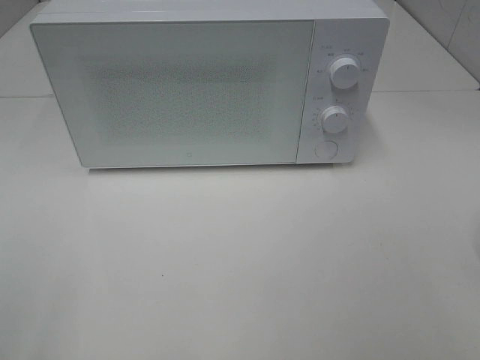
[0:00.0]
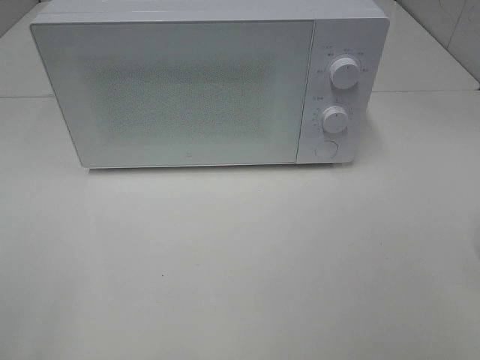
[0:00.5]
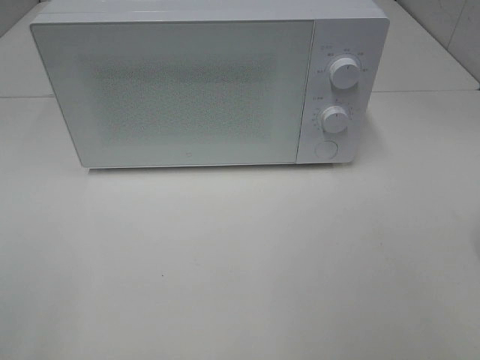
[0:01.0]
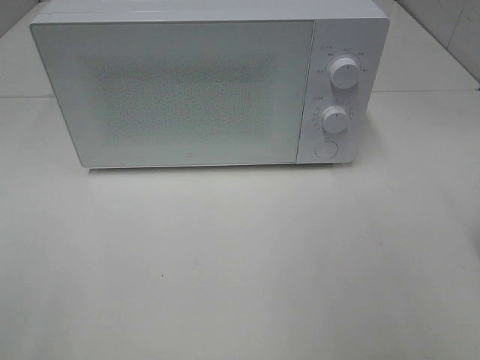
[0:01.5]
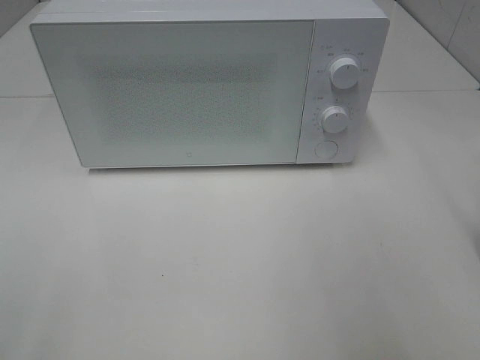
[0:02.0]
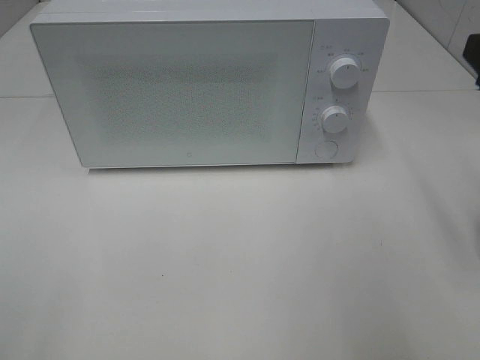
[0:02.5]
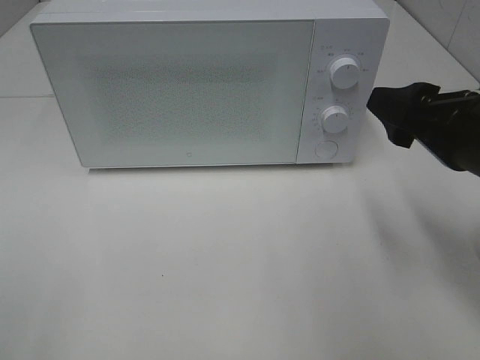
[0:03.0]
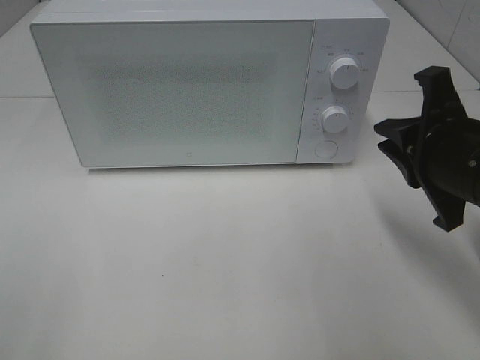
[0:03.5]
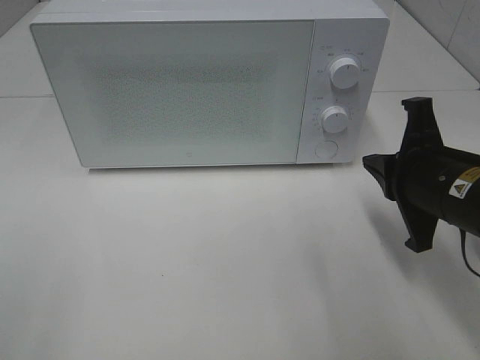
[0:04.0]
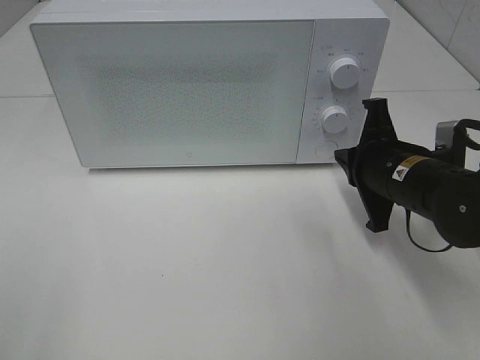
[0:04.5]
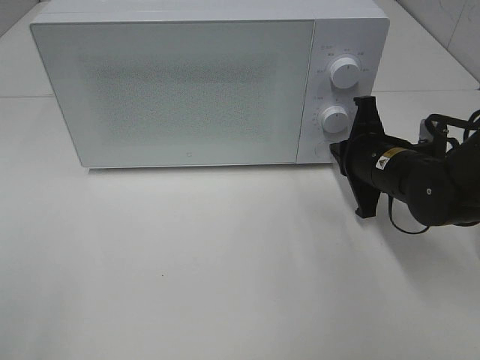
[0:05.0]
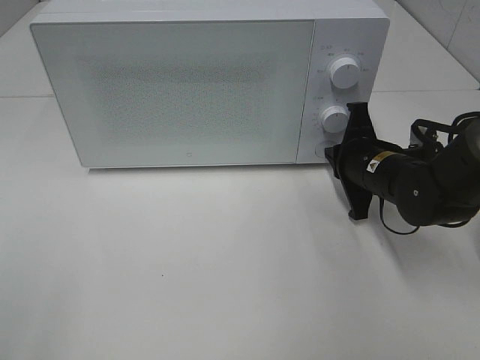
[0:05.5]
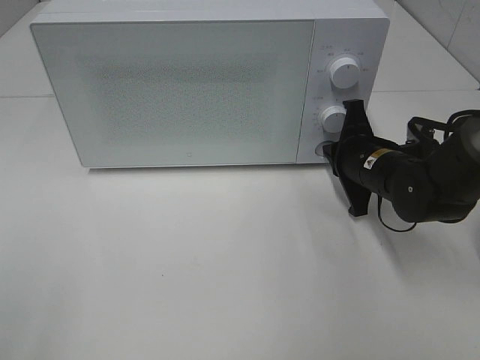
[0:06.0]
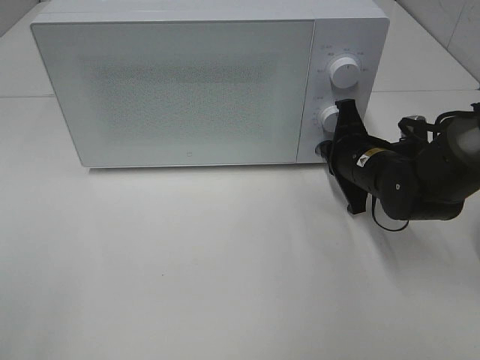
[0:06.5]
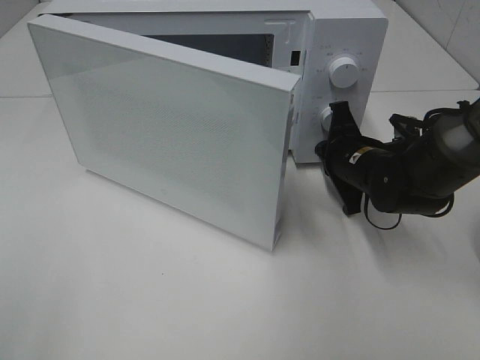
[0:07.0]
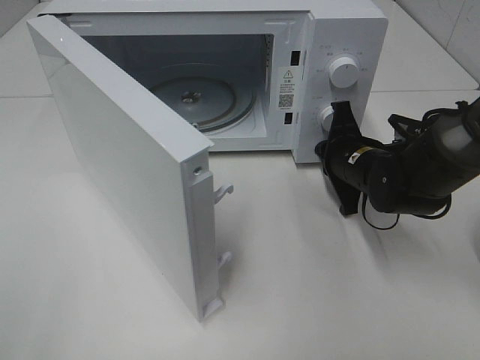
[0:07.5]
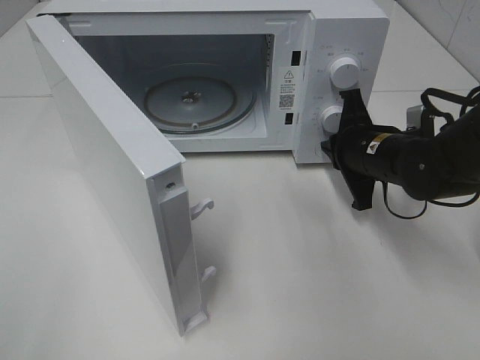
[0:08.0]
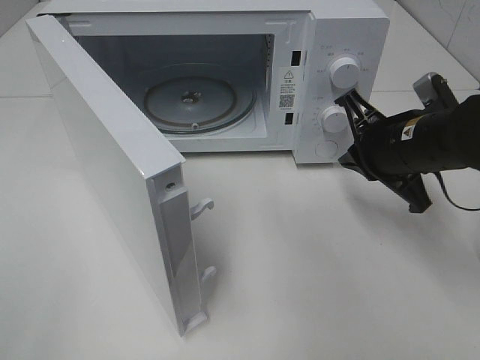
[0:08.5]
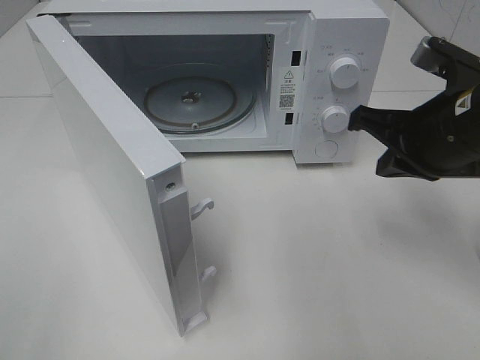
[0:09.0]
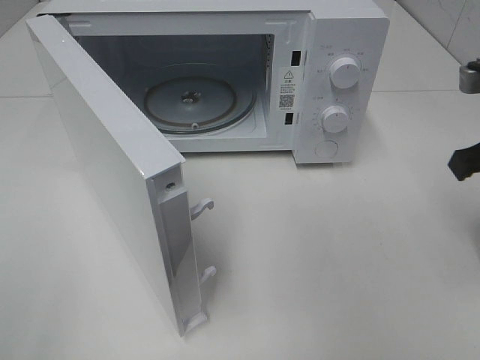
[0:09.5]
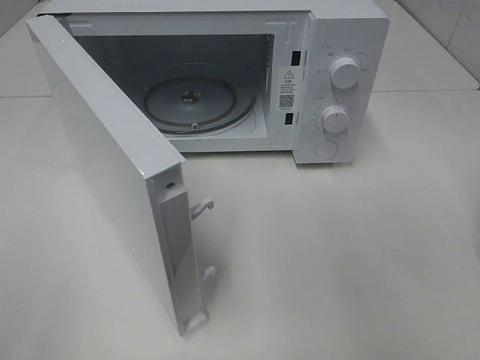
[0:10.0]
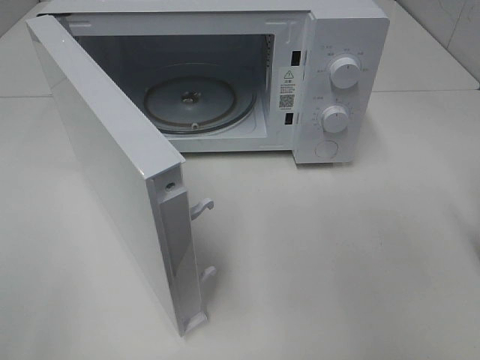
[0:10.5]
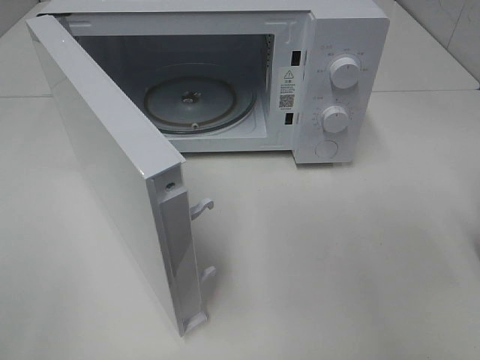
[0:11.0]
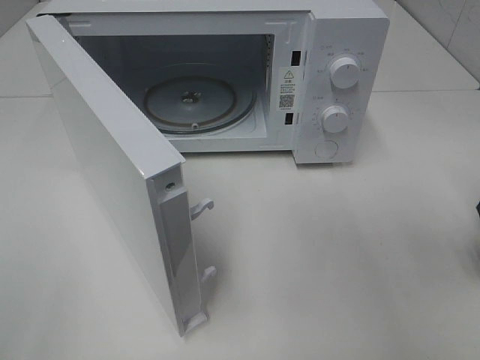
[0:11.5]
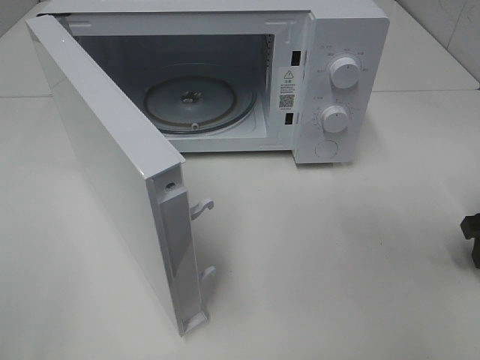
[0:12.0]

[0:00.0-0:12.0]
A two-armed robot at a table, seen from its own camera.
Task of the whole recording: Heat the burger.
Step, 0:00.0 to 0:08.0: Right hand: press the switch.
0:02.0 to 0:04.0: The right gripper heads downward and to the left, covering about 20 cm, and closes its fingers.
0:04.0 to 0:06.0: The right gripper heads forward and downward, covering some 15 cm.
0:08.0 to 0:10.0: The right gripper moves to the right, upward and backward, approximately 20 cm, and opens its fingers.
0:10.0 to 0:12.0: The right gripper heads downward, covering about 10 cm, and opens.

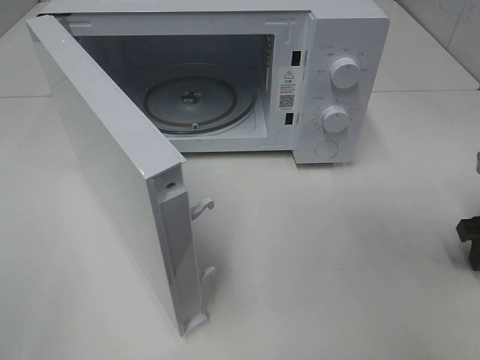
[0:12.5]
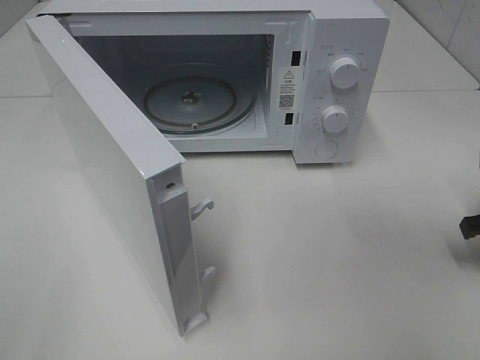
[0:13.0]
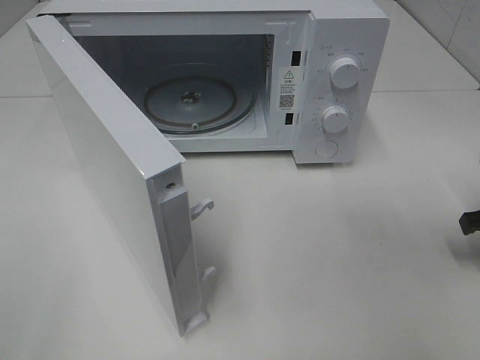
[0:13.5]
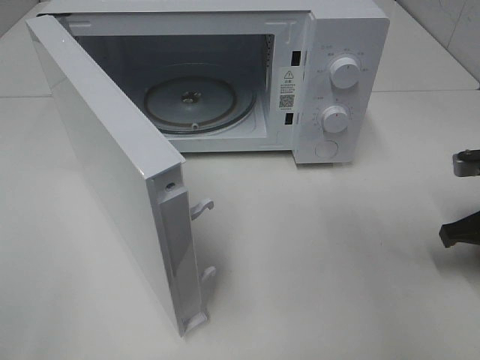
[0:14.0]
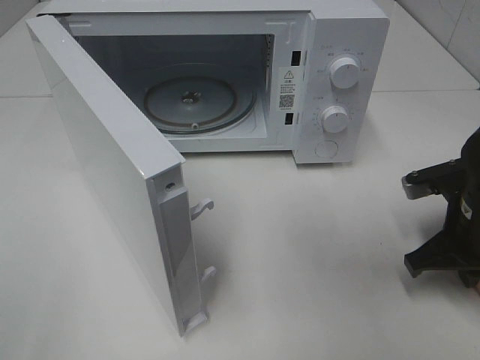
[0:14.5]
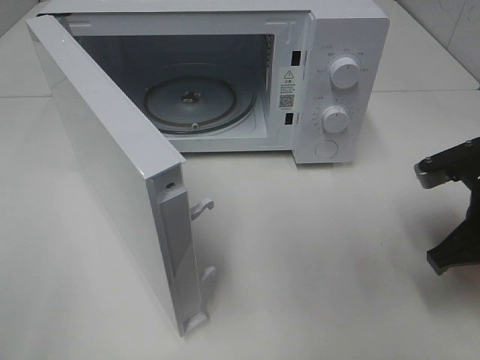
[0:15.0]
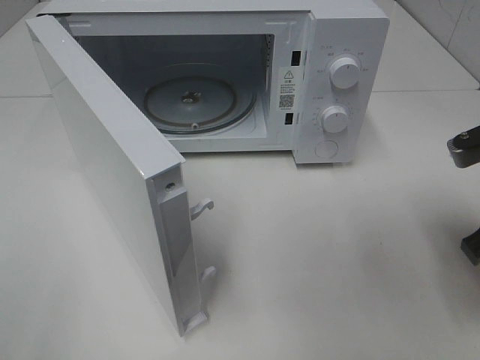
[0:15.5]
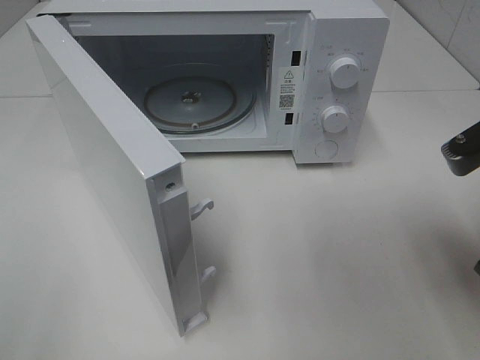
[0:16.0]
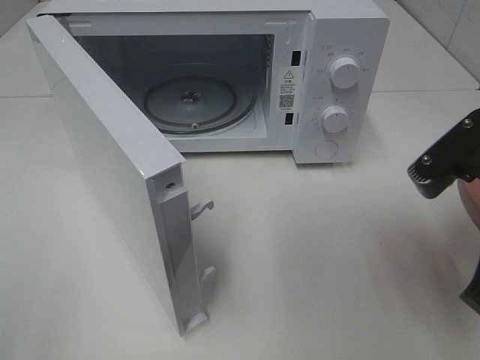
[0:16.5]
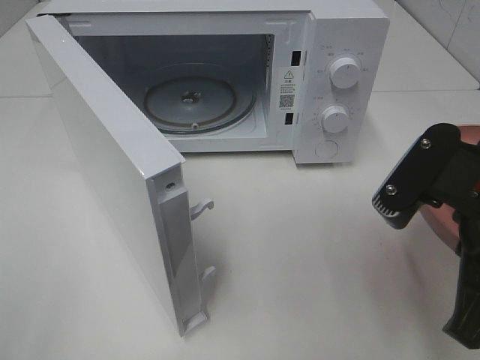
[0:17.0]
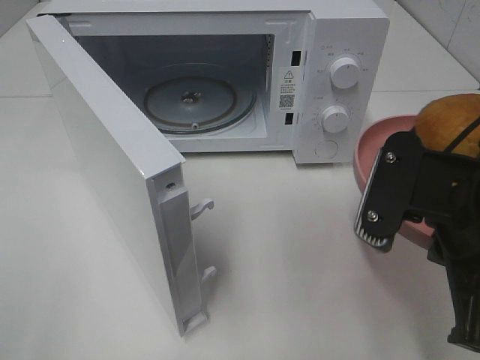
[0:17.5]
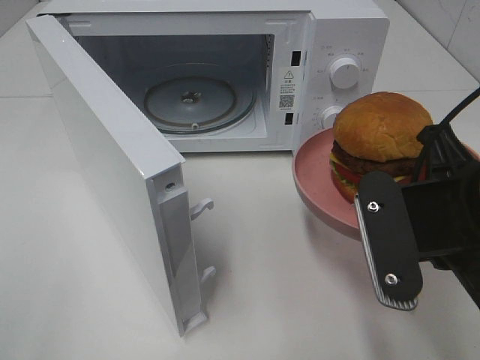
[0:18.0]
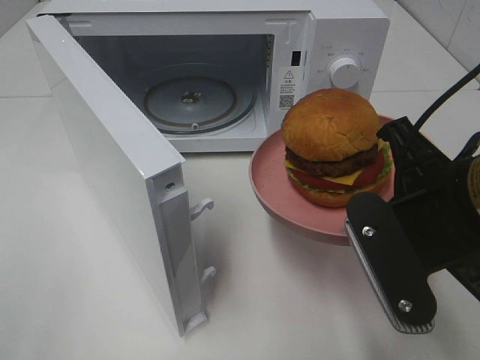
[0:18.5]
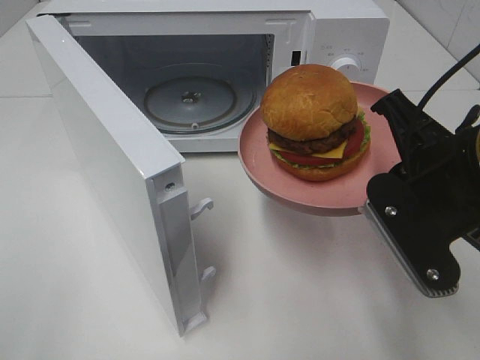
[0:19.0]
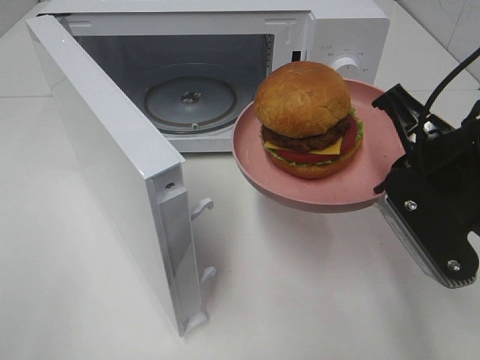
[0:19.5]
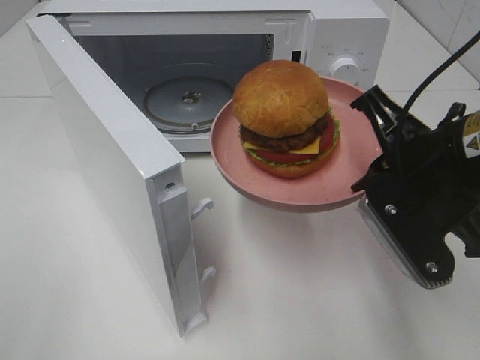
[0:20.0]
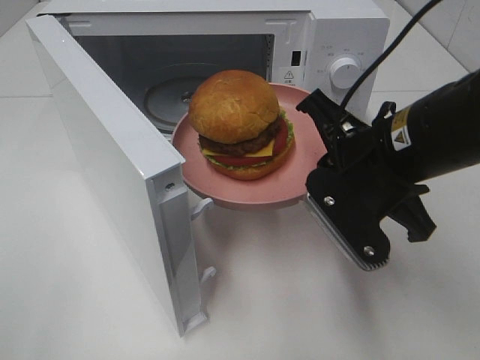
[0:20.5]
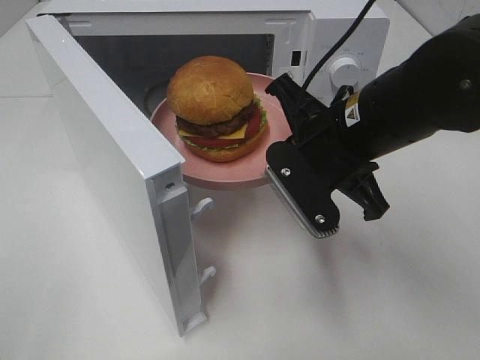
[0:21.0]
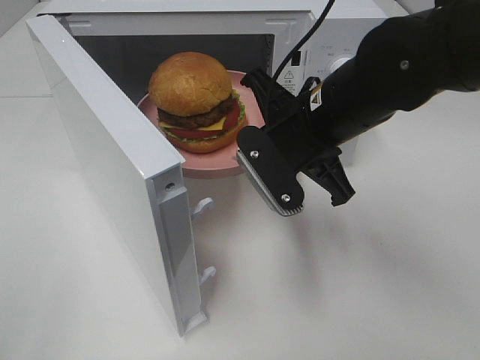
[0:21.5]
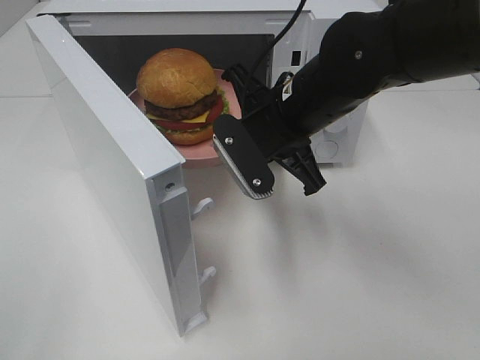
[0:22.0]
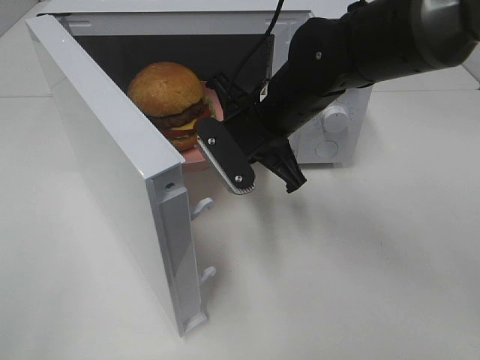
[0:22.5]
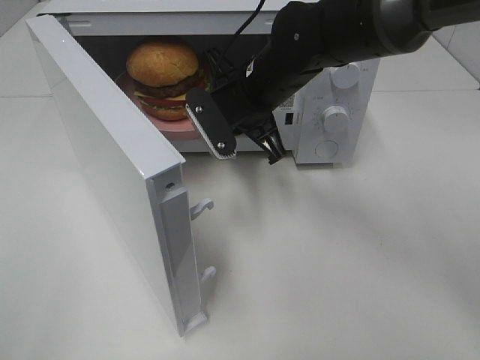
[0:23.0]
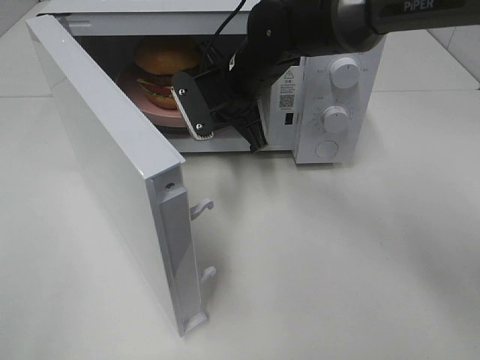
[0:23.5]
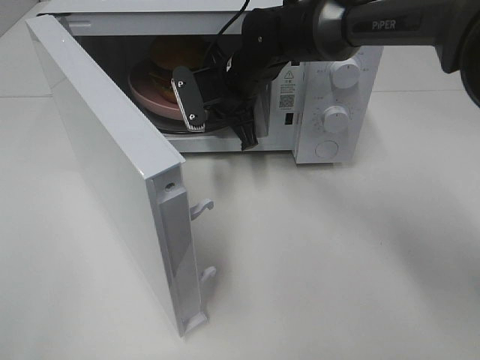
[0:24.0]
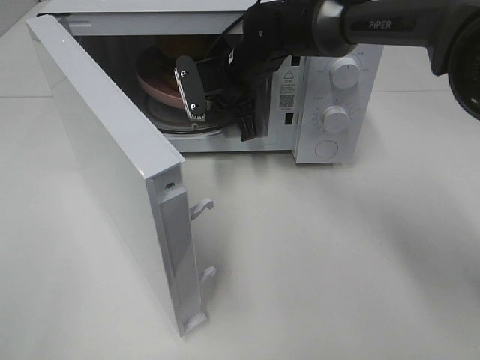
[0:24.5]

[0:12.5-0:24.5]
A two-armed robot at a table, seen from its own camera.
Task of the whole recording: Heat the burger.
0:12.5 to 0:14.5: The right gripper shifts approximately 10 cm to the left, and closes up.
0:14.5 to 0:16.5: The right gripper heads upward and backward, covering roughly 15 cm.
0:16.5 to 0:18.5: The right gripper goes approximately 5 cm to the left.
0:18.5 to 0:20.5: The right gripper shifts about 5 cm forward.
0:20.5 to 0:22.5: The right gripper travels forward and to the left by about 15 cm.
0:22.5 to 0:24.5: The right gripper is displaced forward by roughly 10 cm.

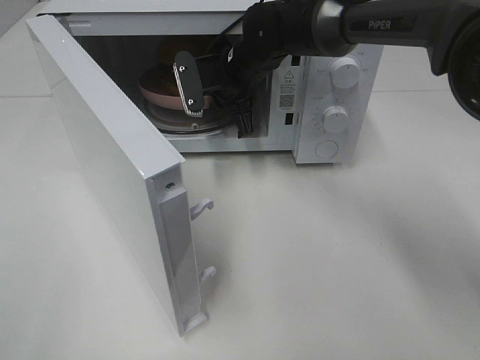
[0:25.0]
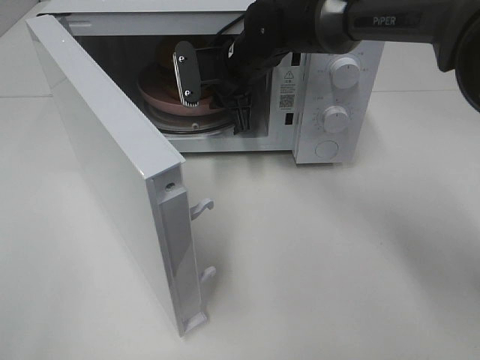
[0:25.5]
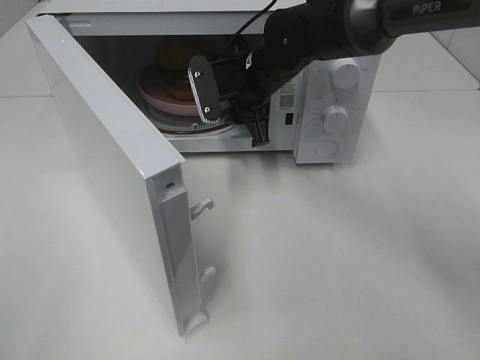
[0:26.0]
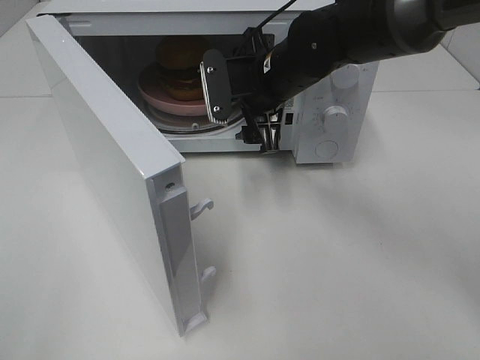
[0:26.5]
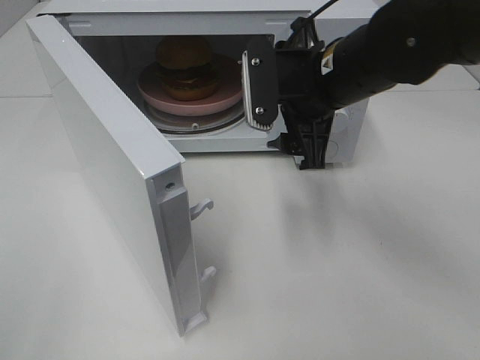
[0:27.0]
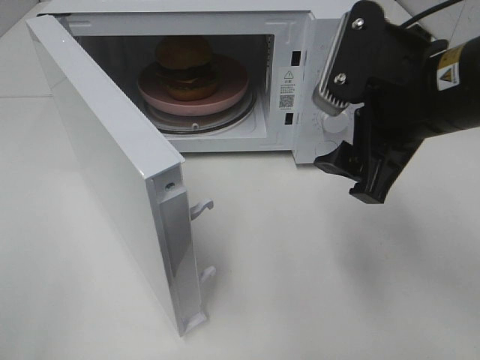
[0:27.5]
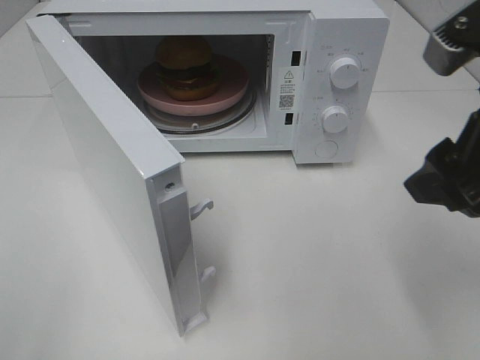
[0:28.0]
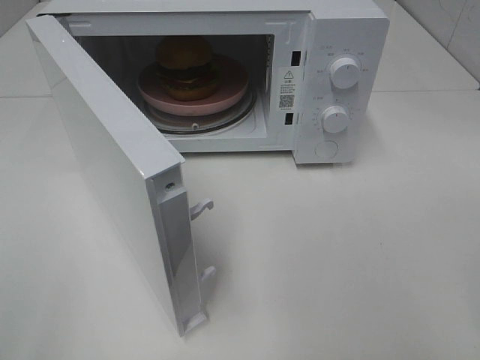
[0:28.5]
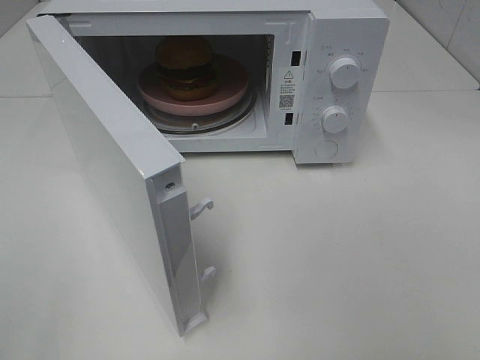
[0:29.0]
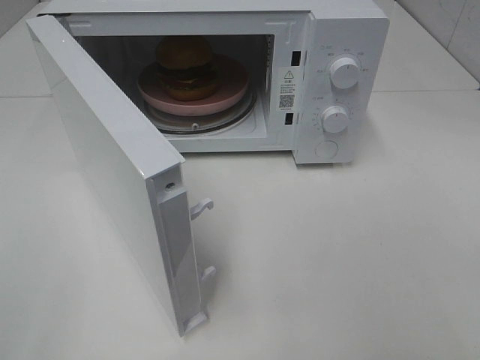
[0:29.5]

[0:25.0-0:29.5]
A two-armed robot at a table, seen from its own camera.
Task of the whole recording: Heat the burger.
0:25.0 to 0:27.0: The right gripper is displaced backward, to the right and upward by roughly 20 cm, and opens its fingers.
0:27.0 to 0:29.5: The right gripper shifts approximately 35 cm backward and to the right.
